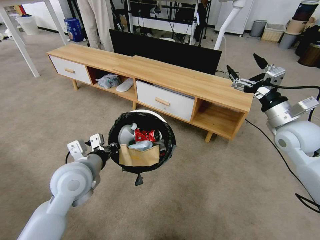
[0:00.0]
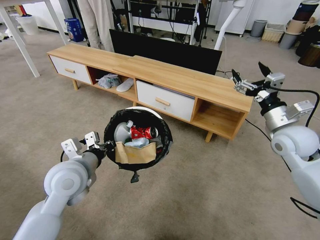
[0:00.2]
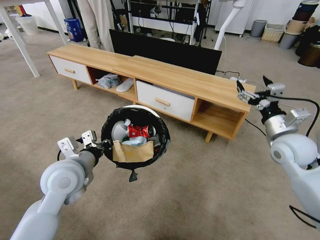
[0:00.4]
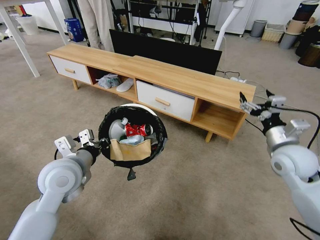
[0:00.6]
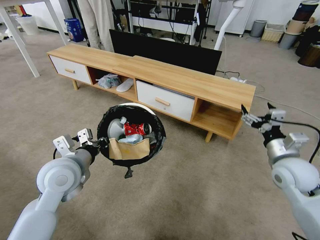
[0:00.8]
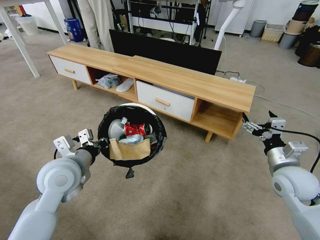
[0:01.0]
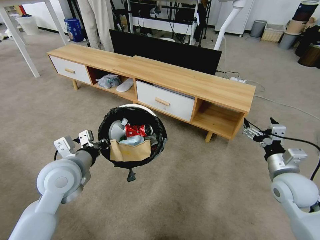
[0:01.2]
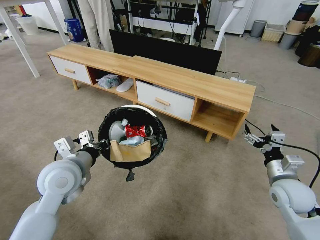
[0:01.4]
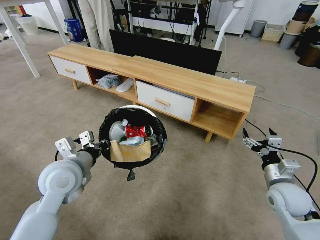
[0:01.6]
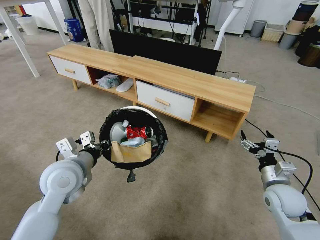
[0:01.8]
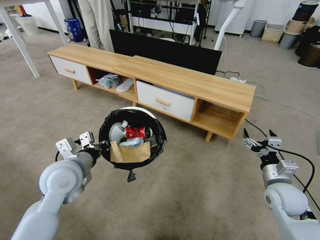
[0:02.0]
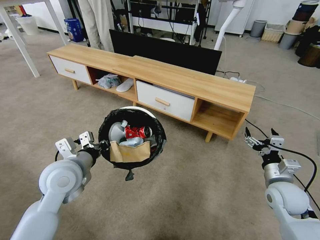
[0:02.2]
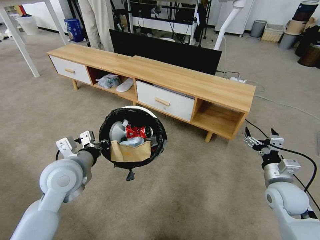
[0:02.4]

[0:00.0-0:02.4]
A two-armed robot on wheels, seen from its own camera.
Task of the whole recording: Pick up the trash bin and place the garbage on the floor into it.
0:00.0 to 0:01.2: The right gripper heads downward and backward, covering some 15 cm.
0:01.2 to 0:02.4: The grippers move only a little.
